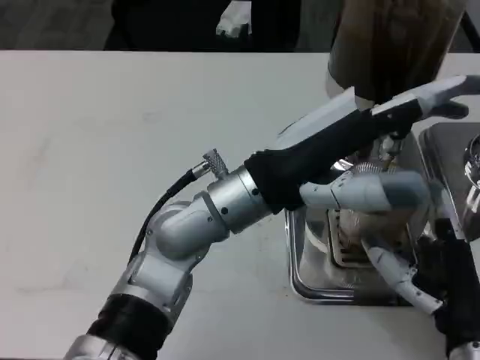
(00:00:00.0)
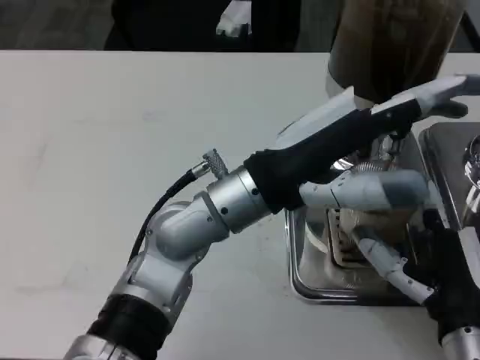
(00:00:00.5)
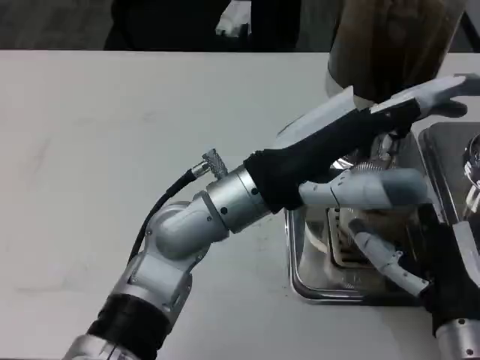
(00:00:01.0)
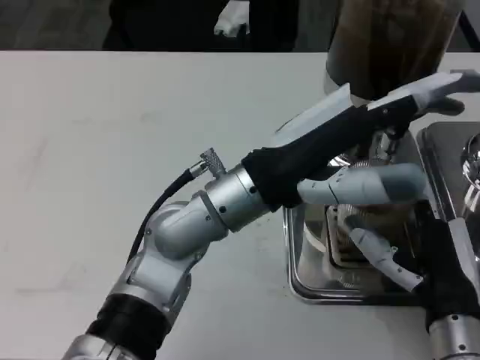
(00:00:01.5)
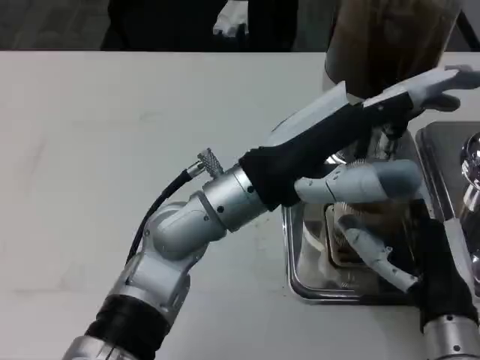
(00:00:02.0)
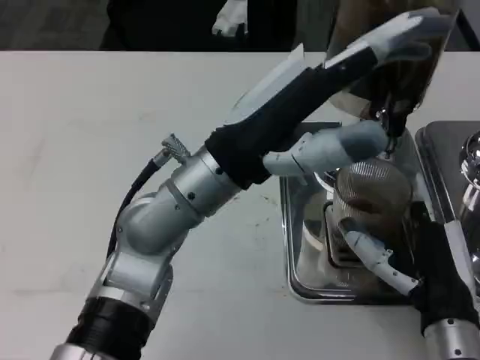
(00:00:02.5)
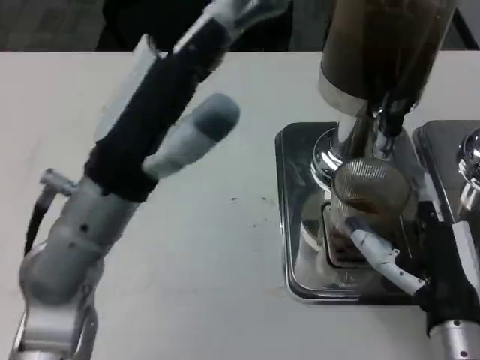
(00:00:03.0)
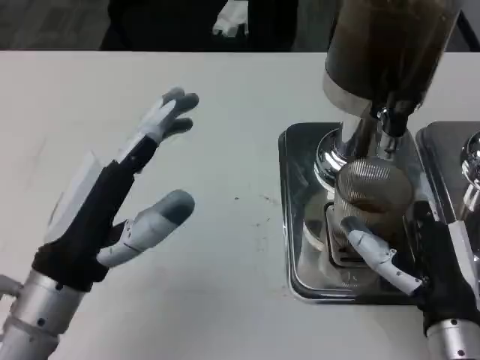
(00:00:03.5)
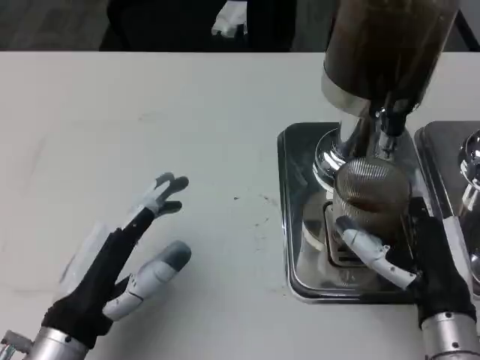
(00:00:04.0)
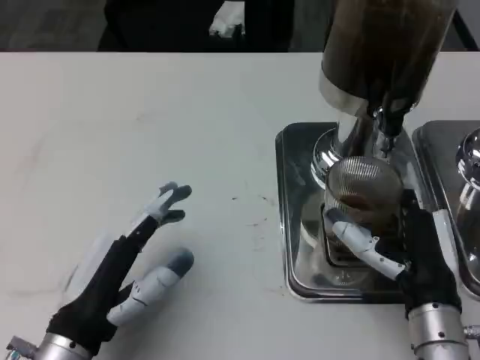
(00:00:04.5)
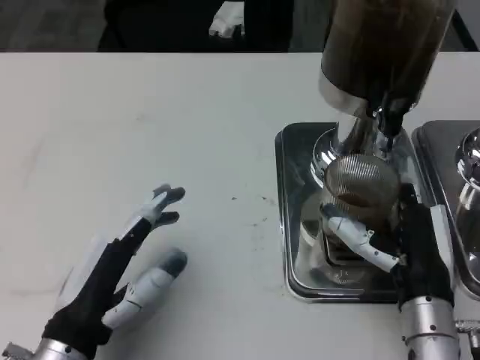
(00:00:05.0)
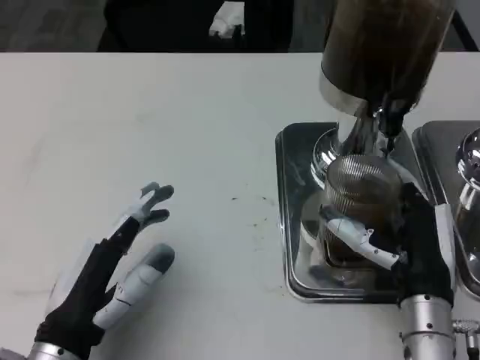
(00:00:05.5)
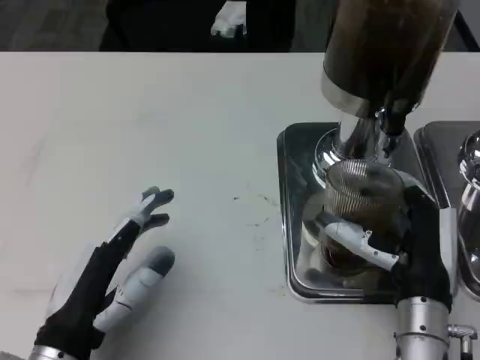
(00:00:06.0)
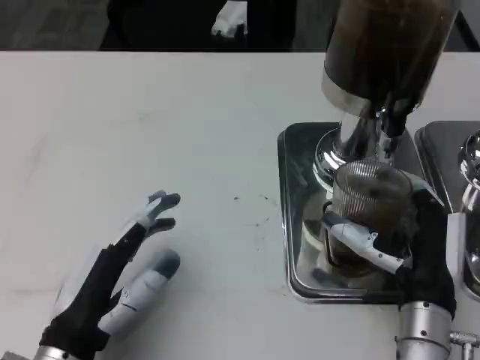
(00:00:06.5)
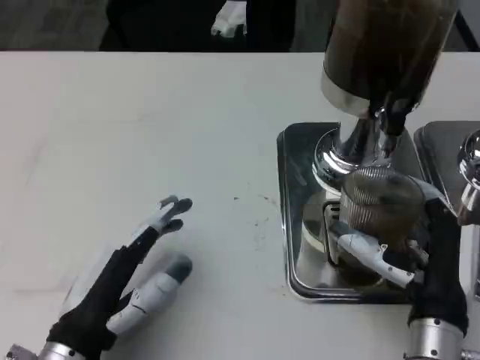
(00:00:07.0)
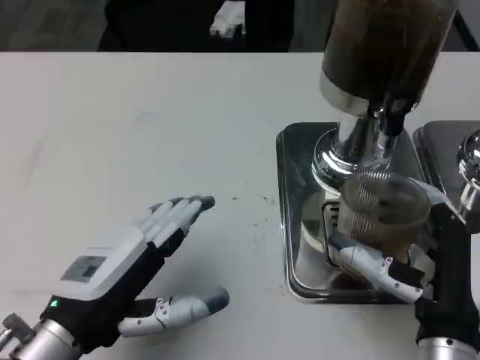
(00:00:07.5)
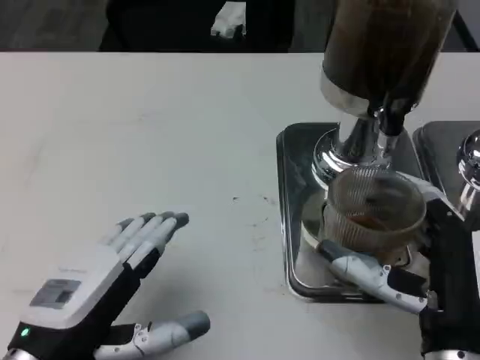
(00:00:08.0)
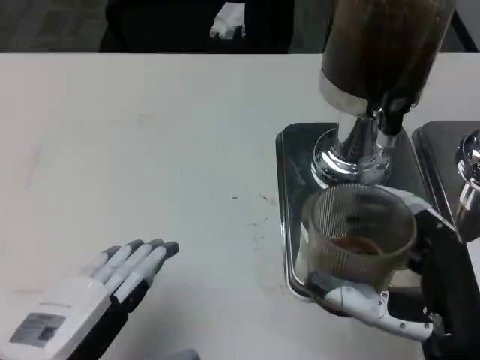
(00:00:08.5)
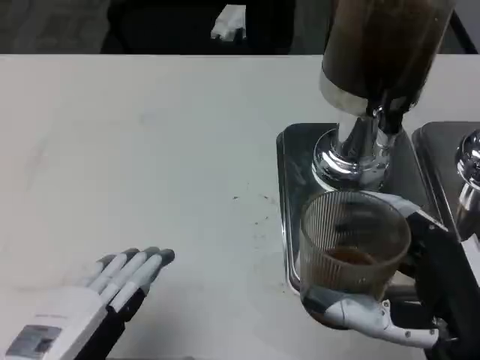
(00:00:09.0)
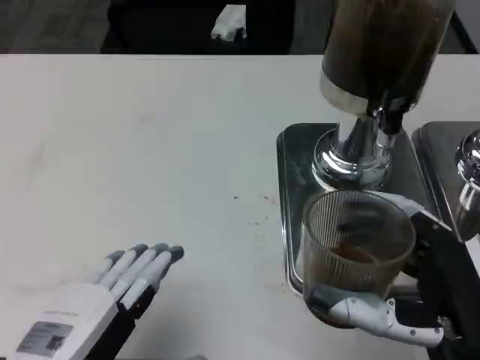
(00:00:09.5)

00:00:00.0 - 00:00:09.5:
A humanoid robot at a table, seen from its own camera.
Task of the whole recording: Grasp the cup under the faucet to collect the drink, then remove the cup.
00:00:00.0 - 00:00:02.0: There are only small adjustments of the hands.
00:00:02.0 - 00:00:04.0: The left hand shifts about 20 cm to the left, backward and downward.
00:00:04.0 - 00:00:05.5: There are only small adjustments of the hands.
00:00:05.5 - 00:00:07.5: The right hand moves roughly 5 cm.
00:00:07.5 - 00:00:09.5: The right hand moves upward and backward, approximately 10 cm; the left hand moves backward, roughly 5 cm.

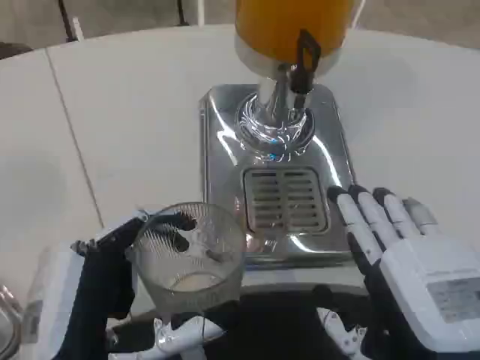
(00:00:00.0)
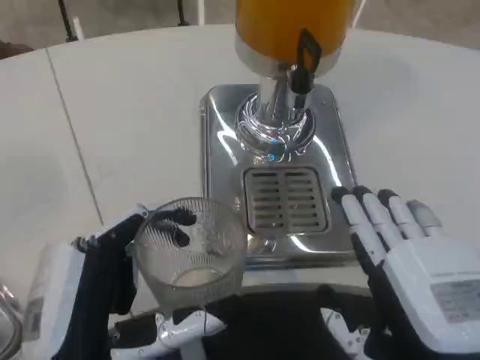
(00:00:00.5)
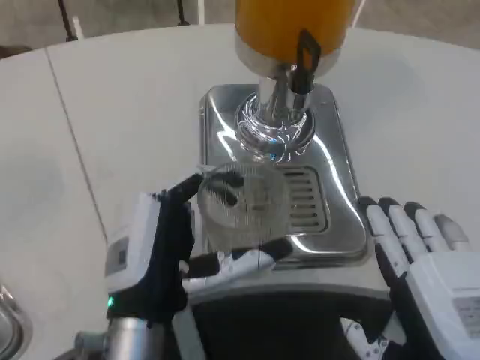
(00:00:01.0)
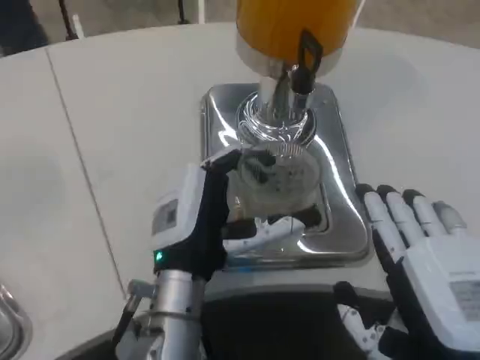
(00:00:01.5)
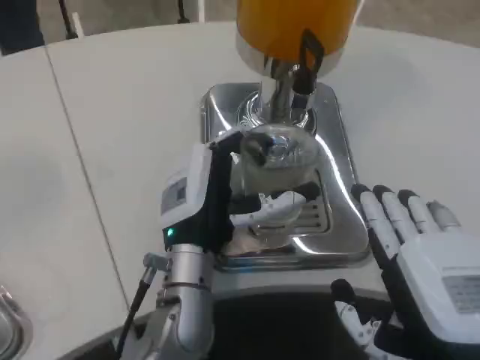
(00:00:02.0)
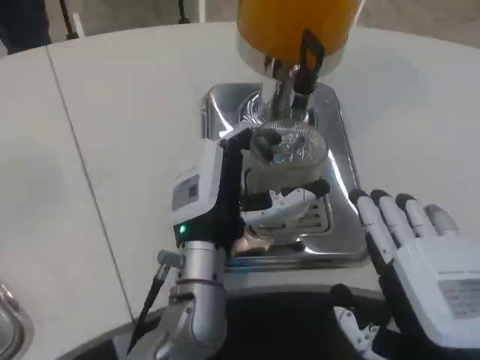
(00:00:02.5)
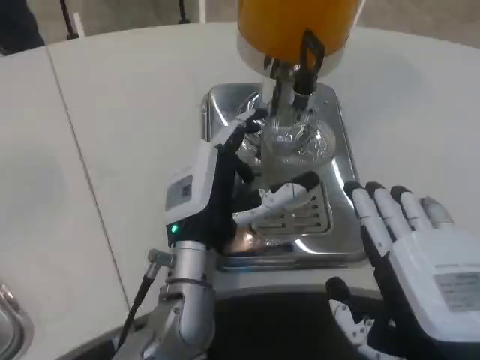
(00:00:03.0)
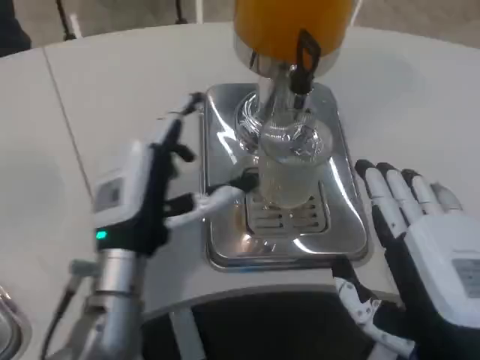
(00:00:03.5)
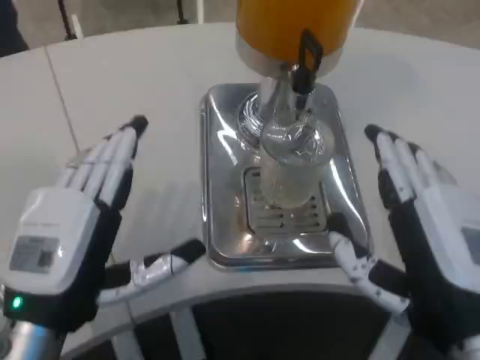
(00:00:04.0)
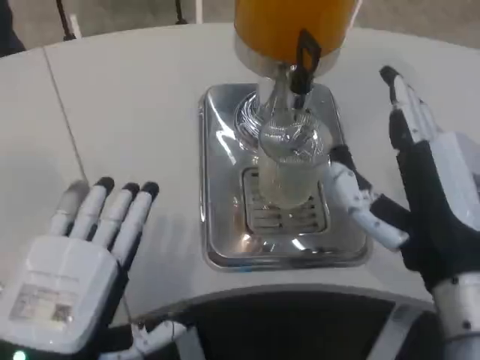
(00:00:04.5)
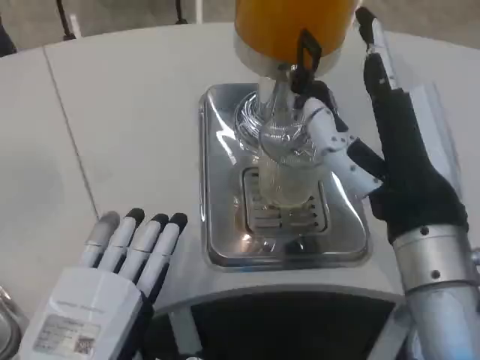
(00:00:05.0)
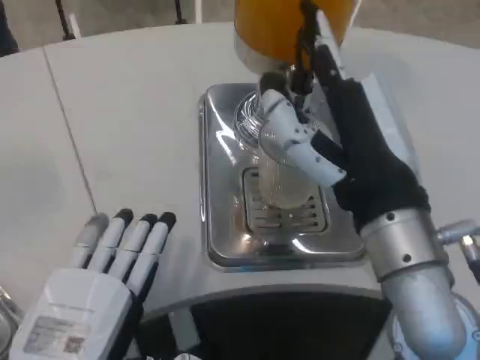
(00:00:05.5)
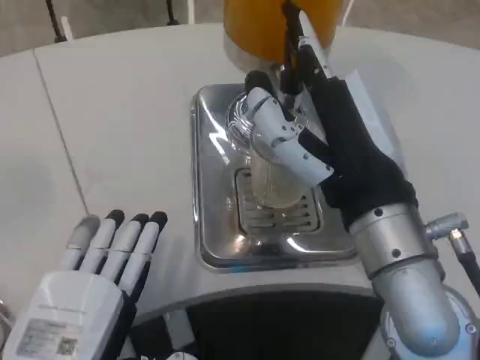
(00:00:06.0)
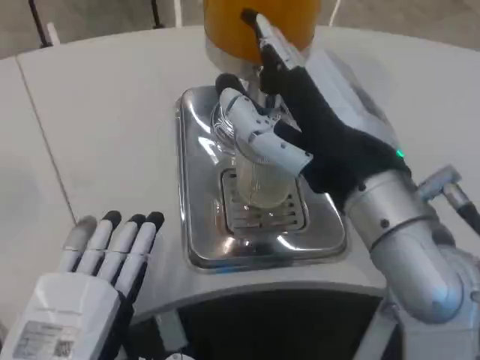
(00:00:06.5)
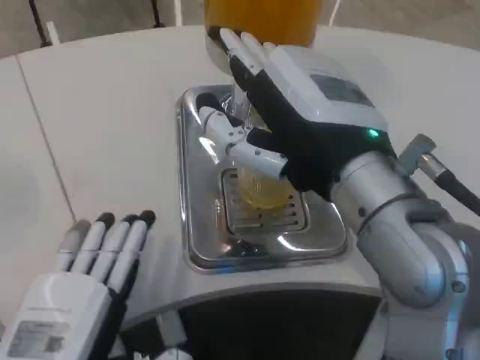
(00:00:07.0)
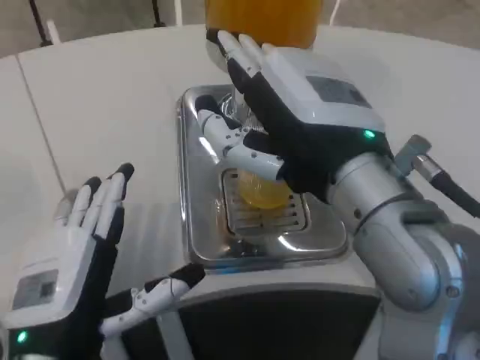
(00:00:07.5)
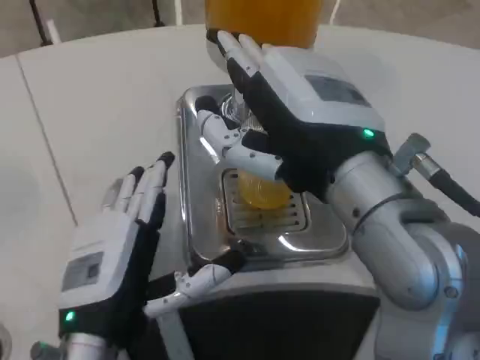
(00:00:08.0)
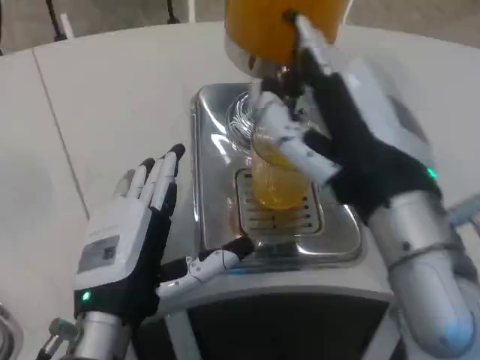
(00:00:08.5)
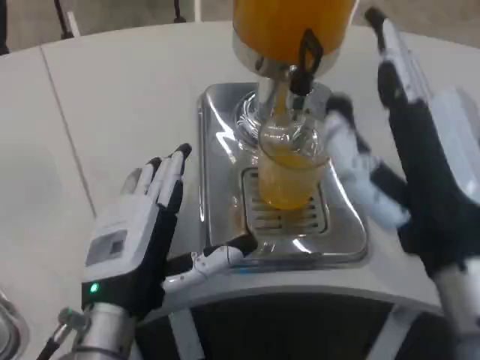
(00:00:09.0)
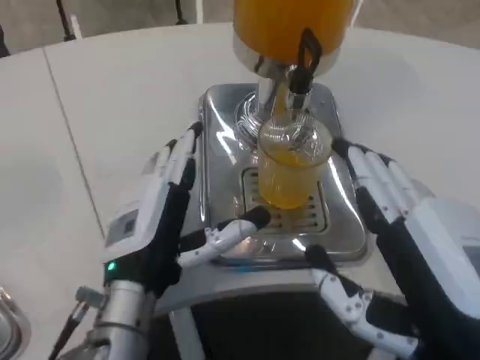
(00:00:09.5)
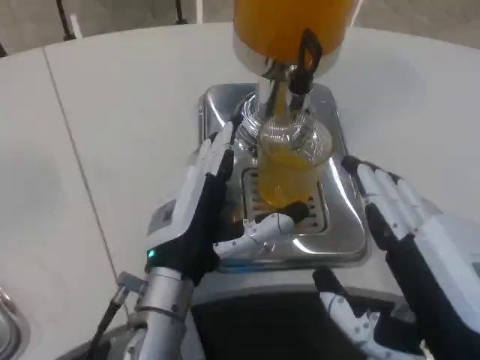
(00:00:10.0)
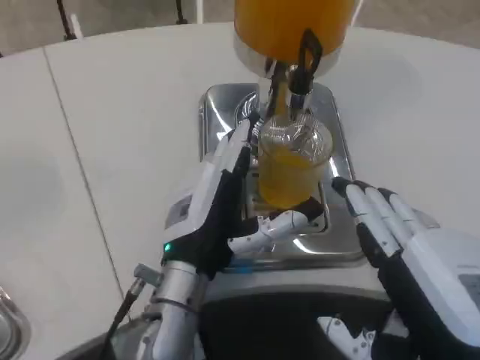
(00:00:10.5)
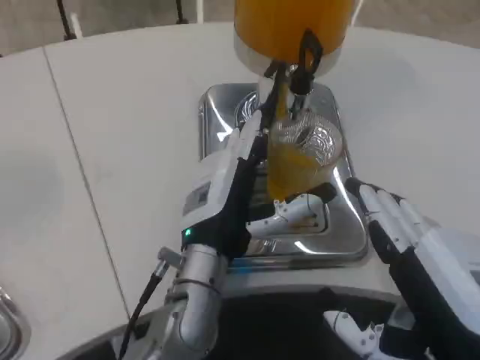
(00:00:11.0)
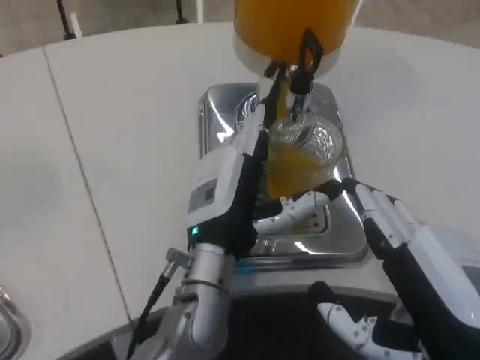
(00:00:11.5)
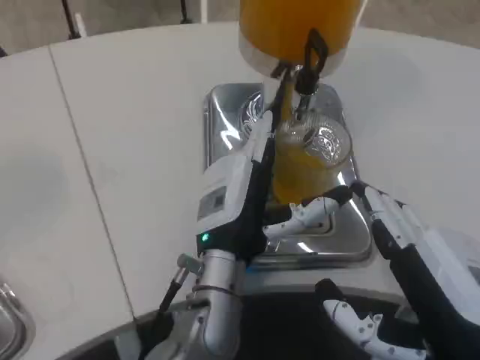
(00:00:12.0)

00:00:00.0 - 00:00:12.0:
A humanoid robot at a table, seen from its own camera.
Task of the whole recording: Grasp the cup under the faucet to collect the drink, then remove the cup.
00:00:00.0 - 00:00:02.0: The left hand travels forward and to the right by approximately 20 cm.
00:00:02.0 - 00:00:04.0: The left hand moves to the left and backward, approximately 15 cm.
00:00:04.0 - 00:00:06.0: The left hand heads backward, covering approximately 5 cm; the right hand moves forward, some 5 cm.
00:00:06.0 - 00:00:08.0: The right hand is displaced upward by about 5 cm, while the left hand shifts approximately 5 cm forward.
00:00:08.0 - 00:00:10.0: The right hand shifts some 15 cm backward, downward and to the right. Meanwhile the left hand goes roughly 10 cm forward and to the right.
00:00:10.0 - 00:00:12.0: The left hand shifts approximately 5 cm to the right.

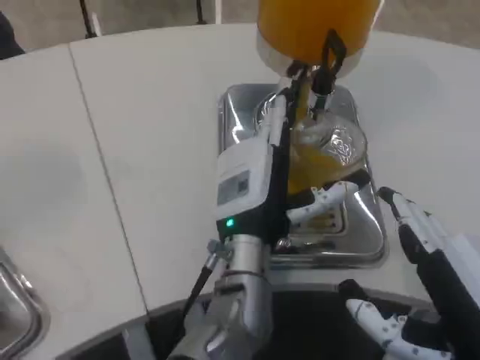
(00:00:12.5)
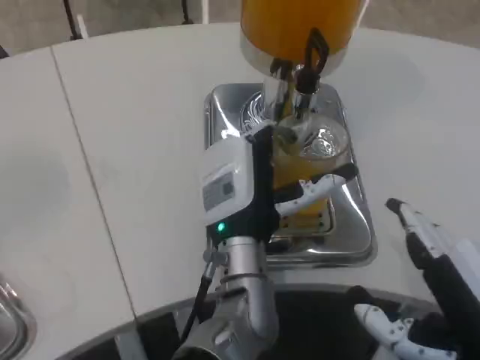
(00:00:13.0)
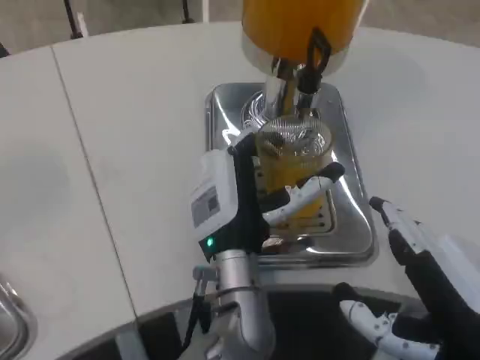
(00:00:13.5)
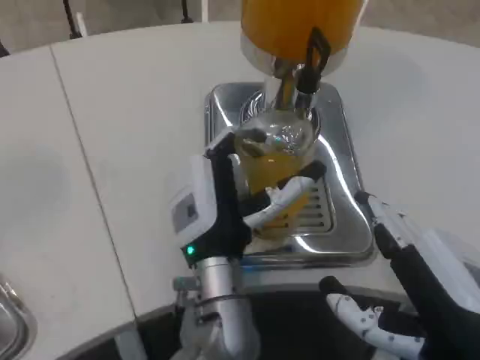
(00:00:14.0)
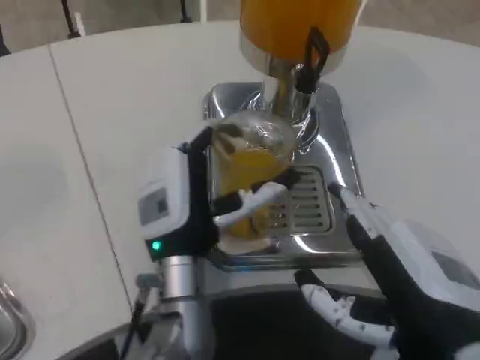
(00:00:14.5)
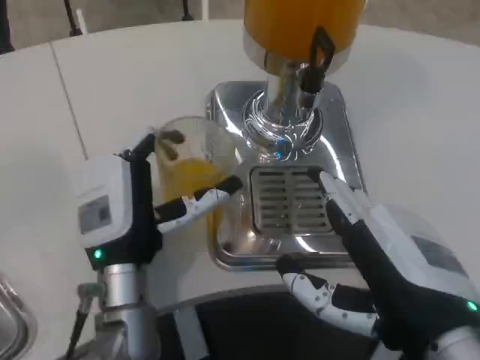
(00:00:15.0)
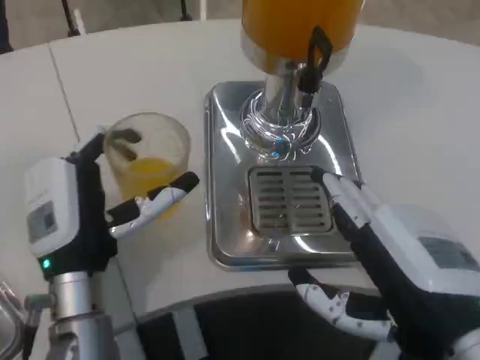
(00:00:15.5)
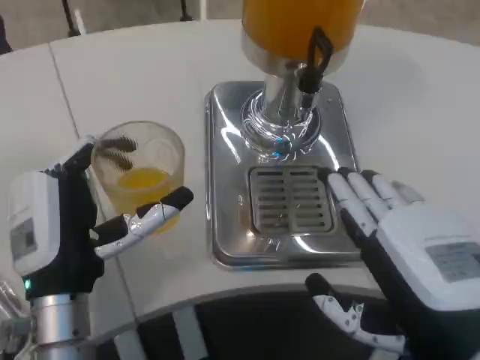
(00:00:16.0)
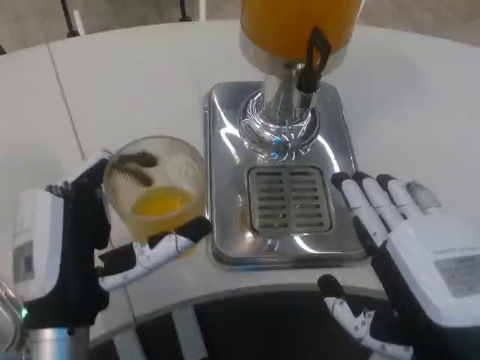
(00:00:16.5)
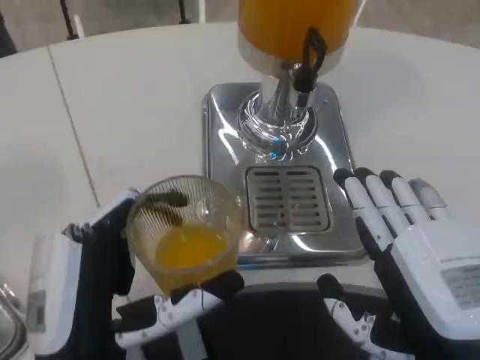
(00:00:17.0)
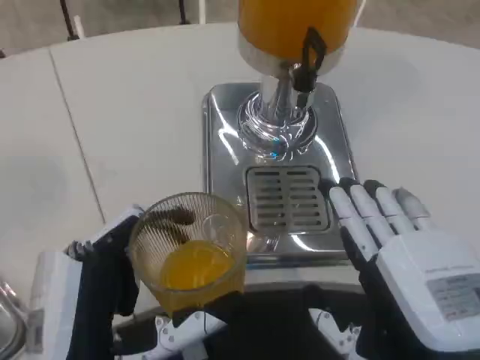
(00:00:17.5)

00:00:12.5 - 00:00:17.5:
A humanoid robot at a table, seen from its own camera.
Task of the whole recording: Grasp the cup under the faucet to collect the drink, then remove the cup.
00:00:12.5 - 00:00:15.0: The left hand is displaced to the left by some 10 cm.
00:00:15.0 - 00:00:17.5: The left hand shifts about 15 cm backward.
